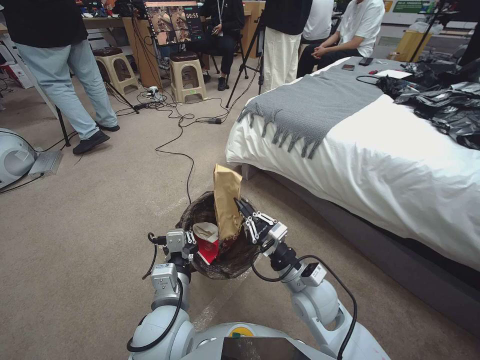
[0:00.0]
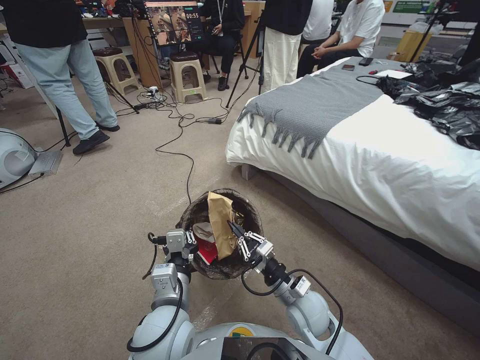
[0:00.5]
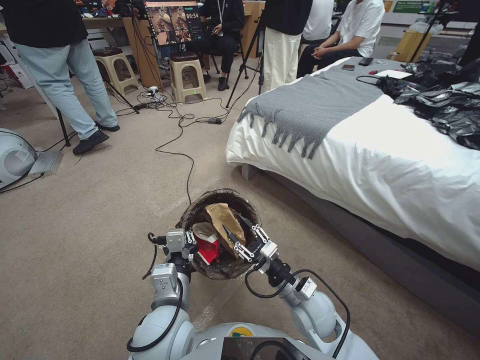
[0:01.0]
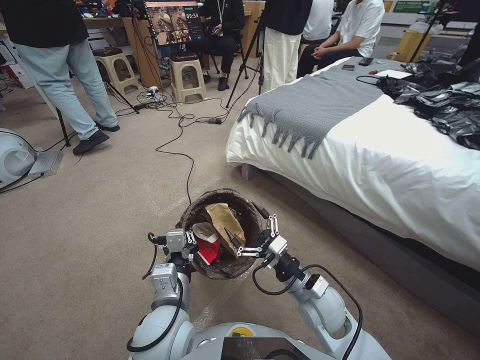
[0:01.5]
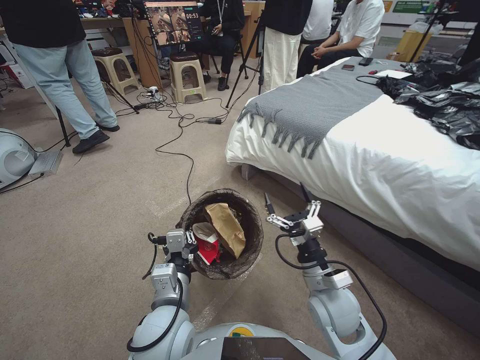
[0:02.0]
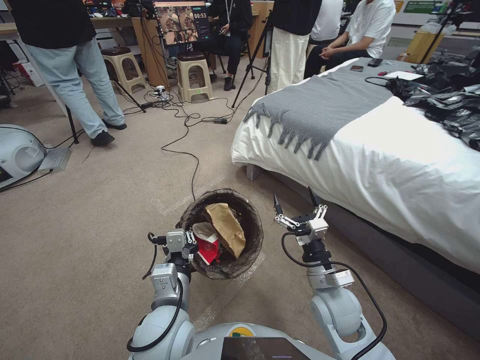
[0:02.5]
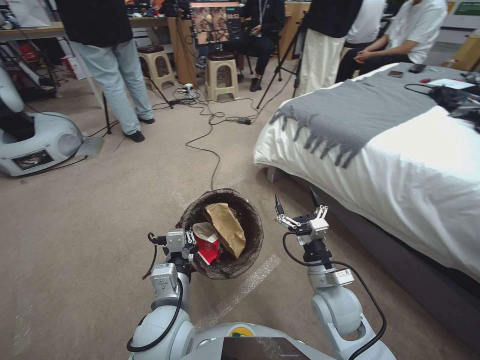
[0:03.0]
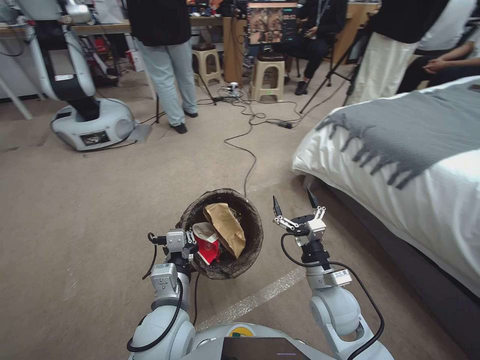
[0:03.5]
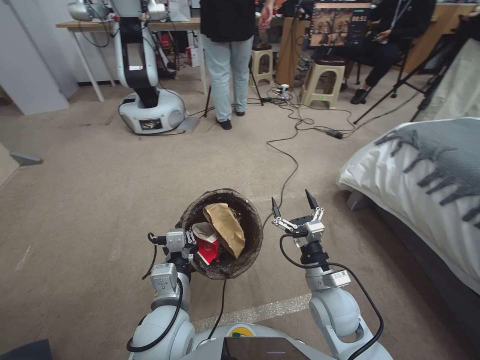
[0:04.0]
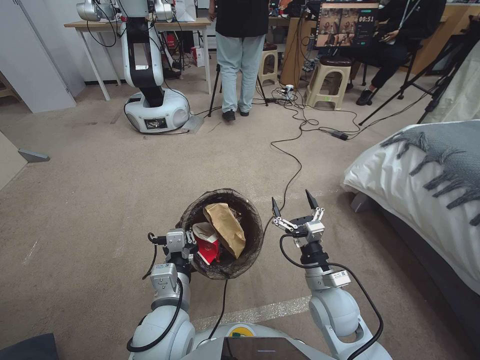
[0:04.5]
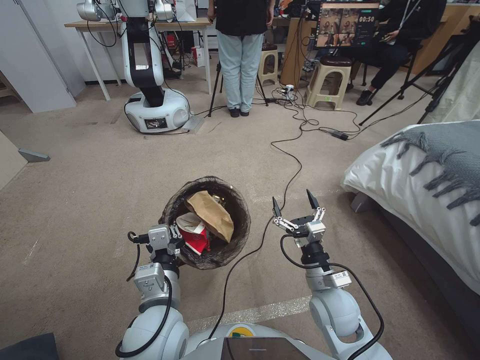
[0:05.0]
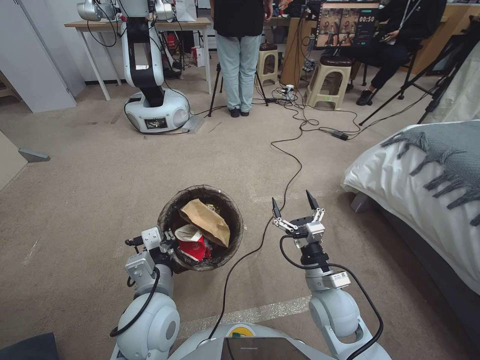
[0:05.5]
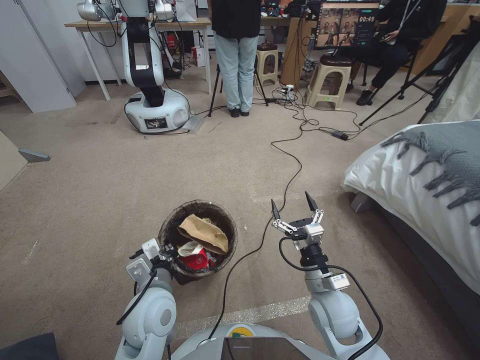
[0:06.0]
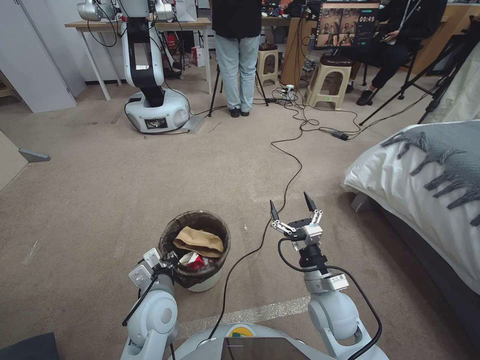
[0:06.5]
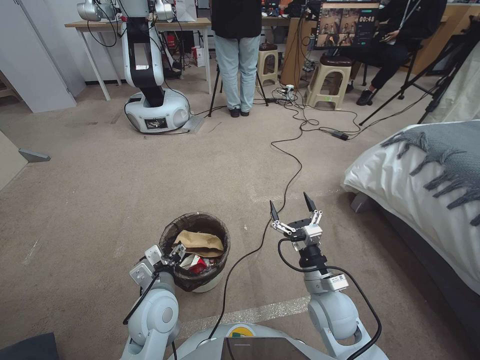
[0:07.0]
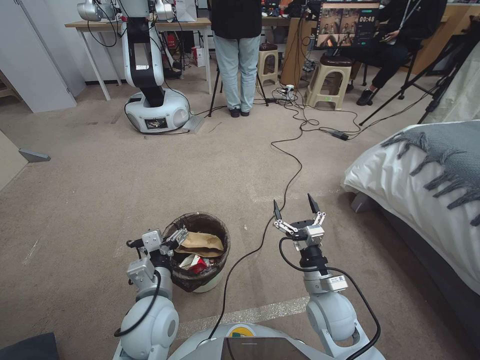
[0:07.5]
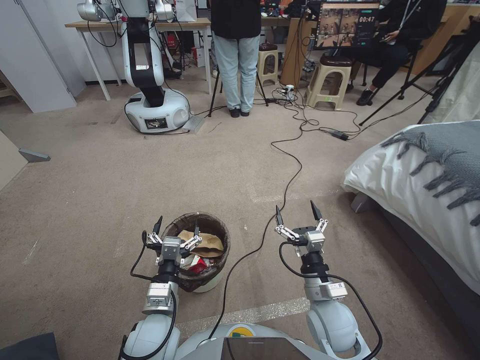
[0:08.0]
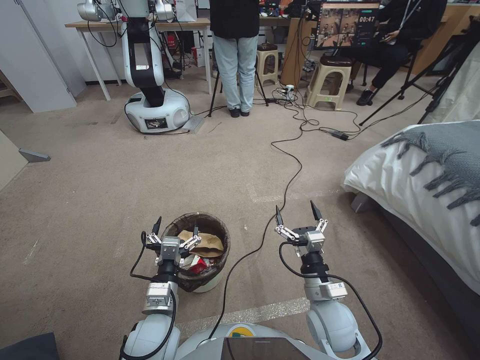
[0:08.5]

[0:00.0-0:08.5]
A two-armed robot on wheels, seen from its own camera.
Task of the whole recording: Pick up the trash bin, then pick up the garbage from the floor and place it into the trash bin.
0:00.0 to 0:02.0: The right gripper travels downward and back again, about 10 cm each way, and opens up.
0:04.0 to 0:06.5: The left gripper moves downward, approximately 5 cm.
0:06.5 to 0:08.5: The left gripper opens.

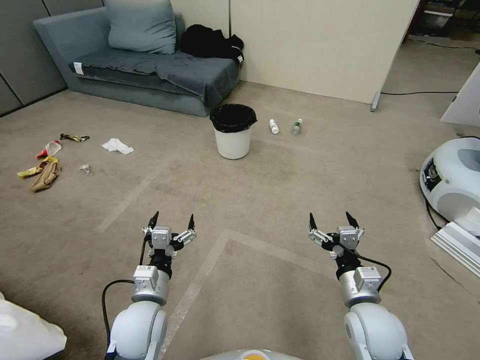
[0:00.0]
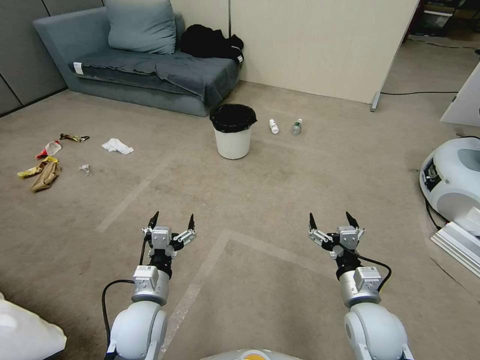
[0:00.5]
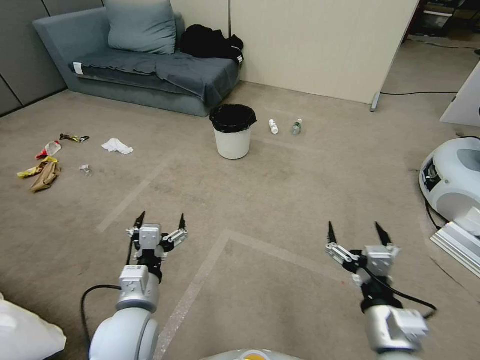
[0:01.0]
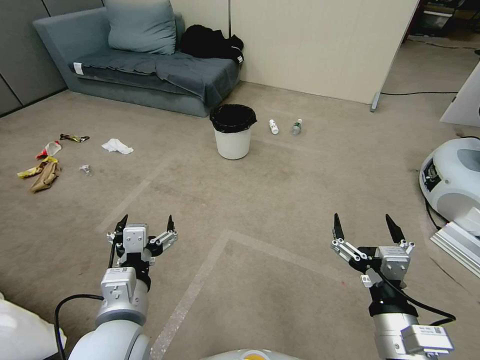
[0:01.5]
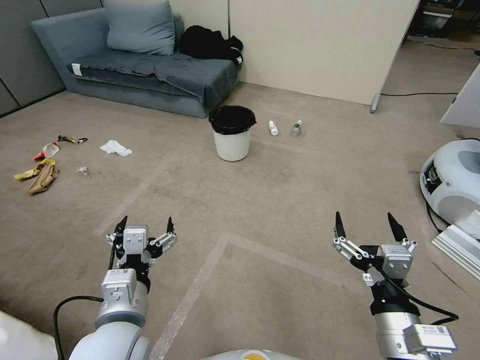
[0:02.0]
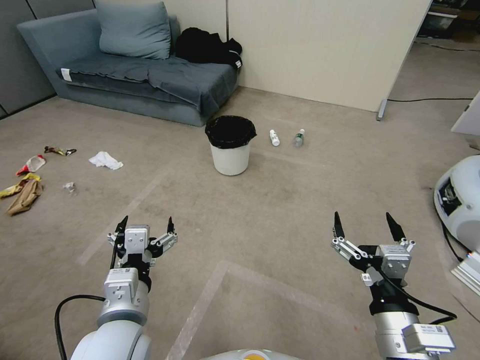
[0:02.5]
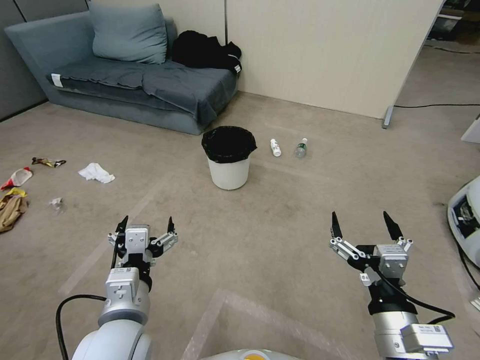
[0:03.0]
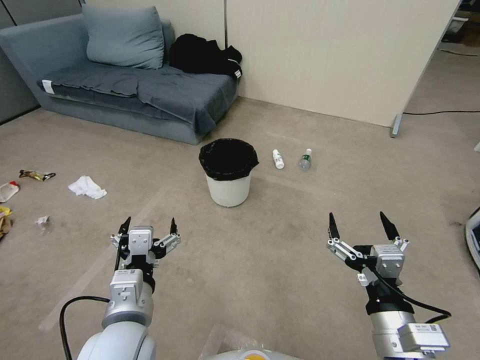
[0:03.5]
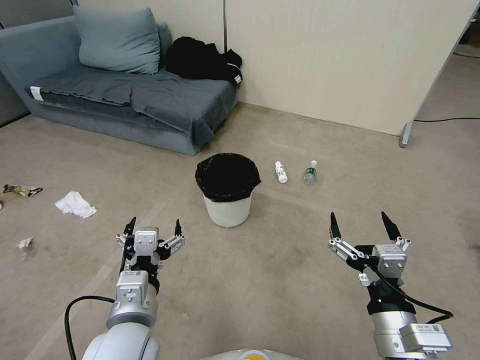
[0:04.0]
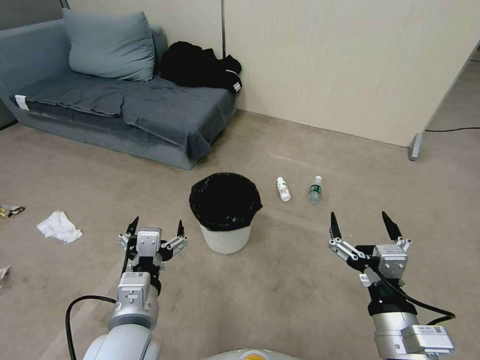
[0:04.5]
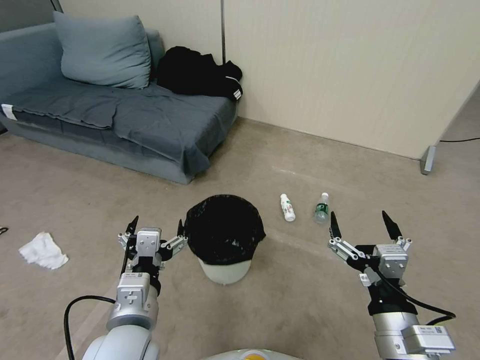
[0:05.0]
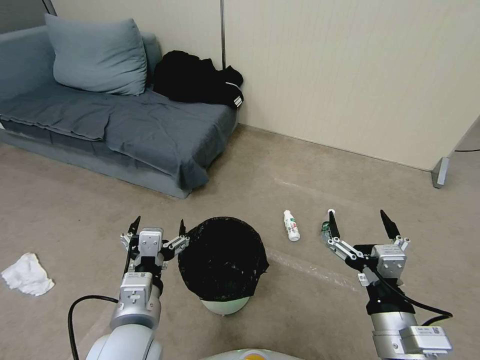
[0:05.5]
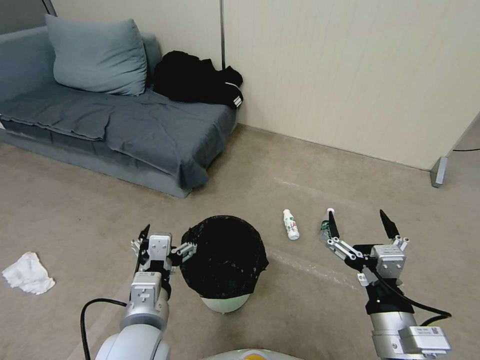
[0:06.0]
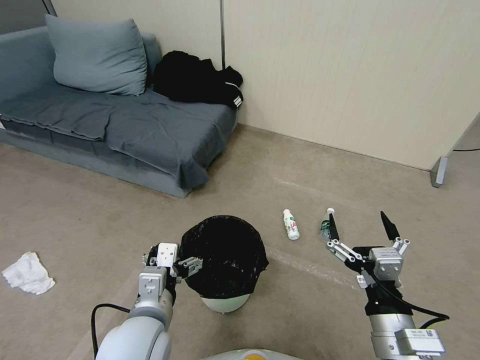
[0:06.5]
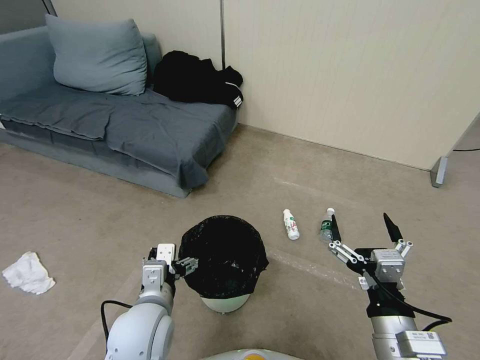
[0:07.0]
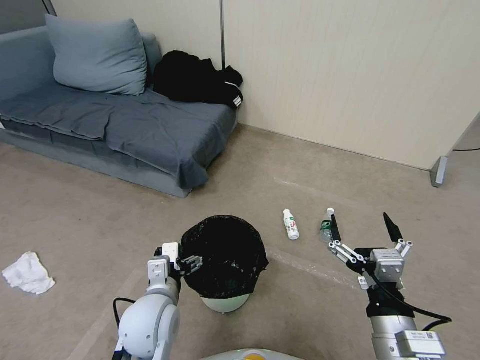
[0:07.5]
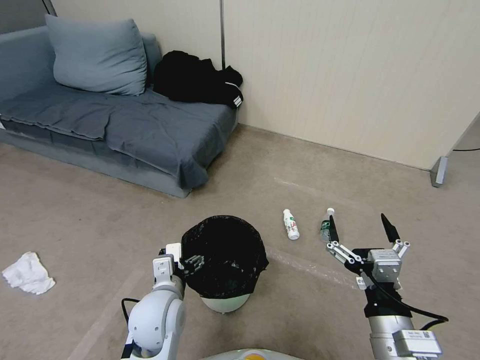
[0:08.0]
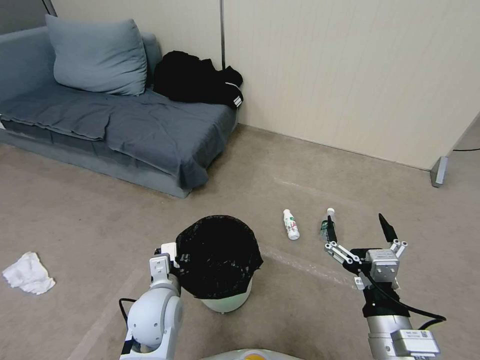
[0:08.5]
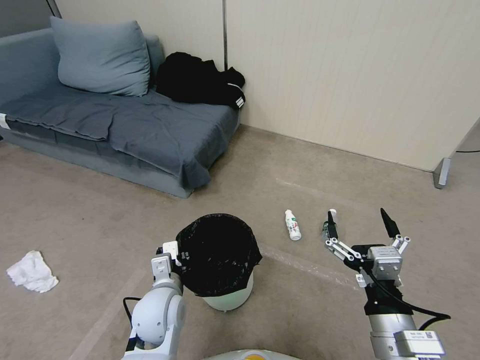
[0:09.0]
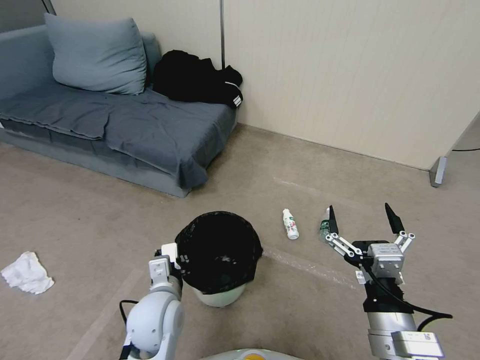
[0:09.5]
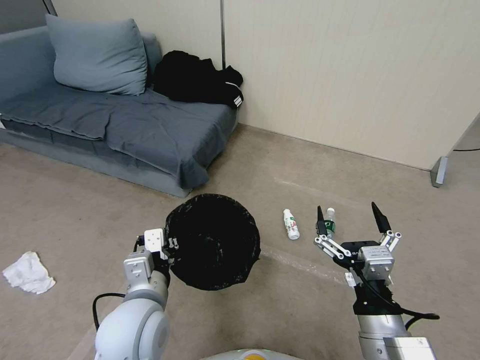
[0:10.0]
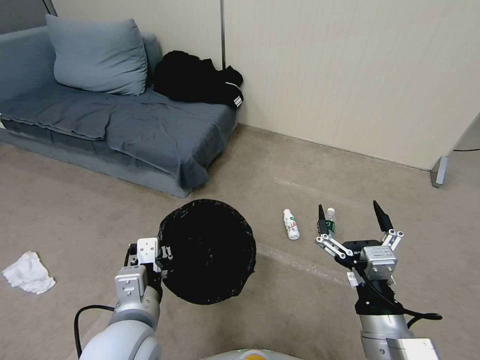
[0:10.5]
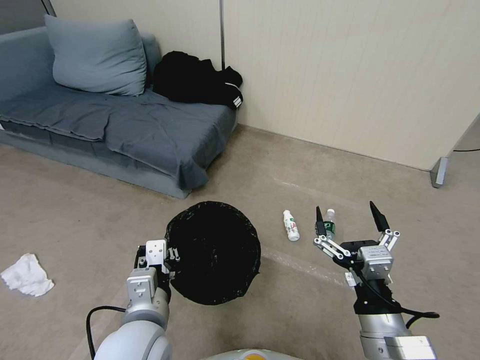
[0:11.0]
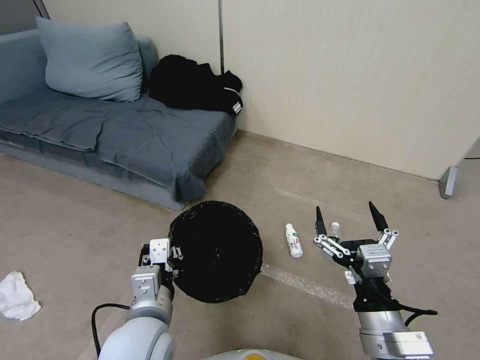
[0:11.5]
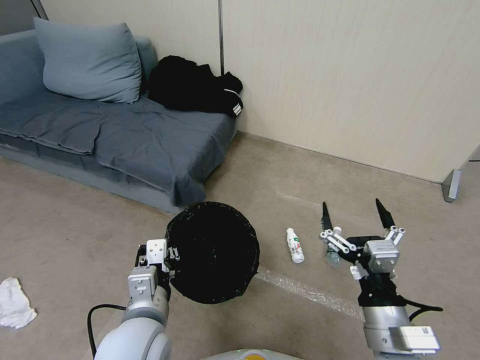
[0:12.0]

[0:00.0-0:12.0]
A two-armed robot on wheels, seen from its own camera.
Task of the whole recording: Pick up the trash bin, then pick up the garbage from the floor and place it into the trash bin.
0:06.0 to 0:08.0: The left gripper is displaced downward and forward by roughly 10 cm.
0:08.0 to 0:10.0: The left gripper is displaced upward by approximately 10 cm, and closes up.
0:10.0 to 0:12.0: There are only small adjustments of the grippers.

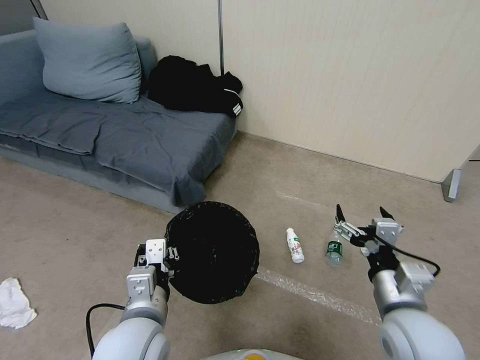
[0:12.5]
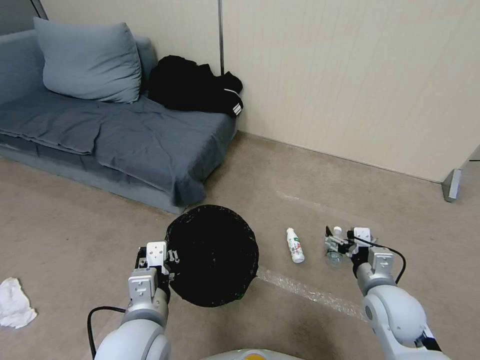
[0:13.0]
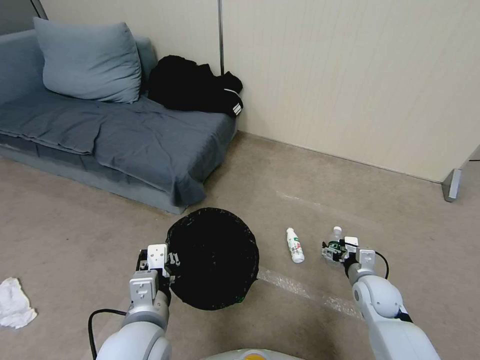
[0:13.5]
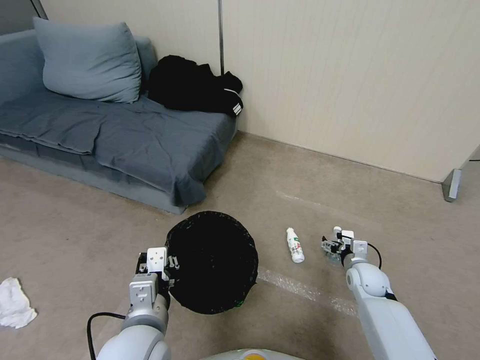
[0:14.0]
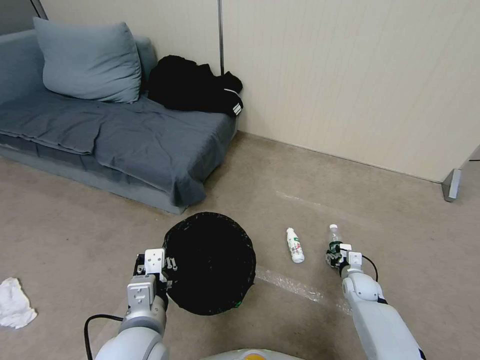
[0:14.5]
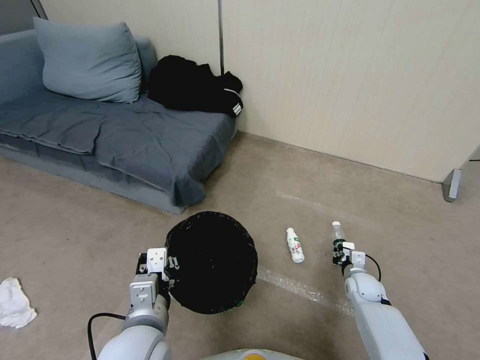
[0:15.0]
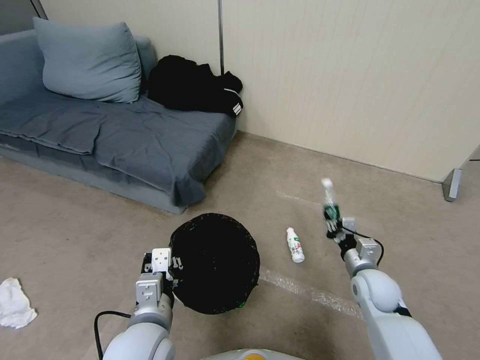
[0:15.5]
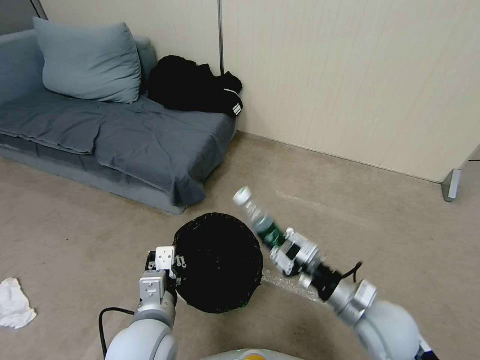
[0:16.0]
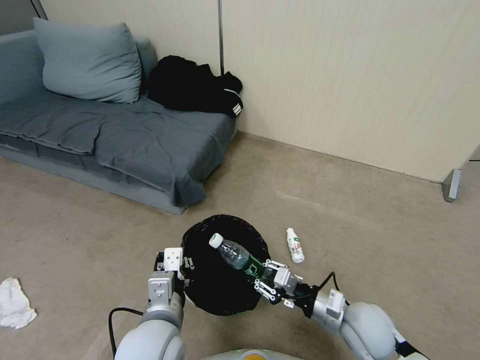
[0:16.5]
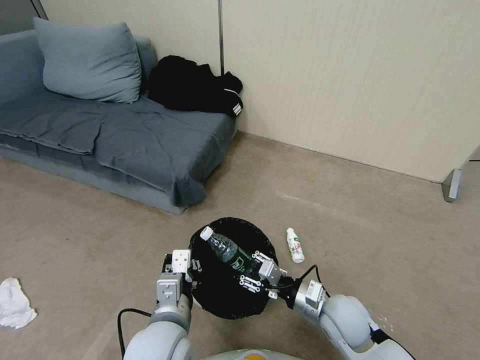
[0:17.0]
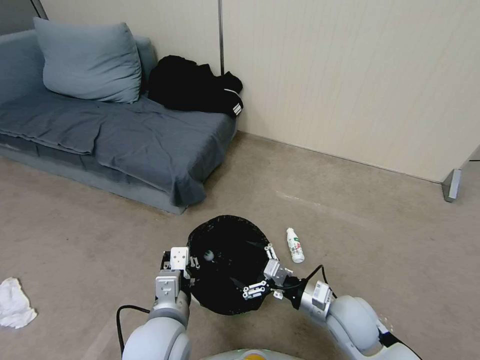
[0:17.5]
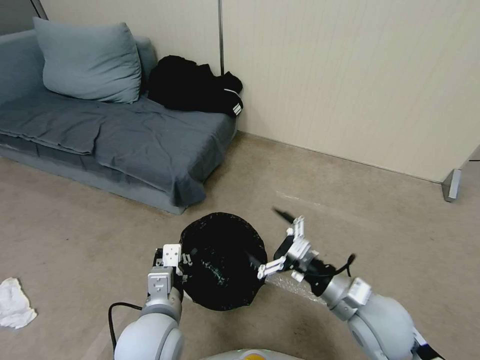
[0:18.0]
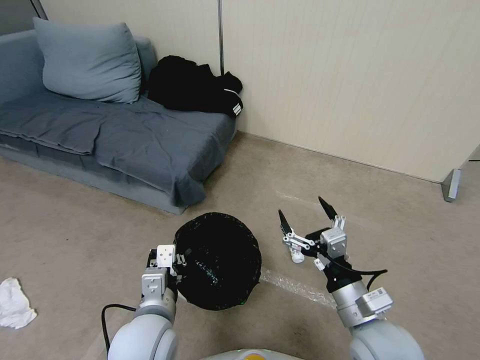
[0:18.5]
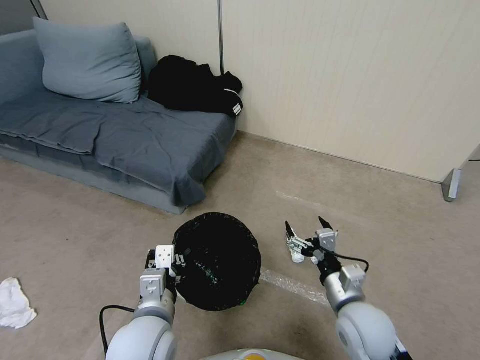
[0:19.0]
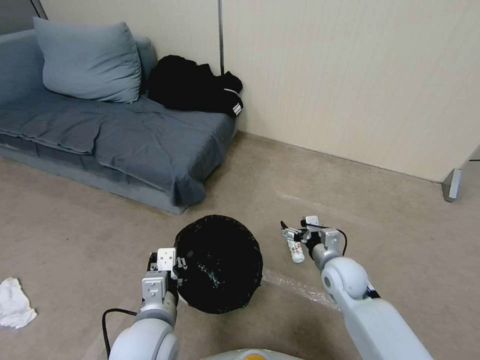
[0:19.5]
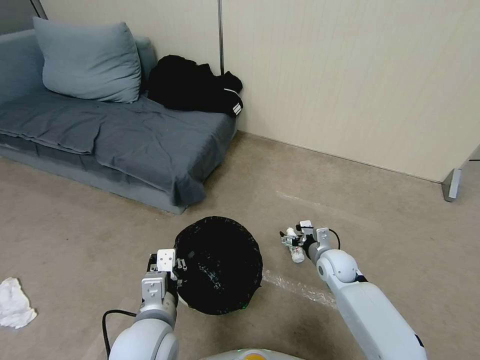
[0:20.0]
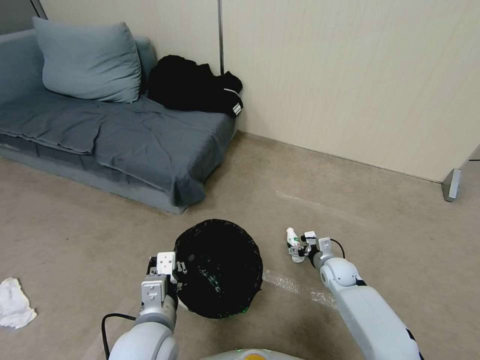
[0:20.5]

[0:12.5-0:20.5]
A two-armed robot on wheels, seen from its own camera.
Task of the whole recording: Pick up the trash bin, then pick up the garbage from the floor and place it into the trash bin.
0:12.5 to 0:14.5: The right gripper heads downward and forward, covering some 35 cm, and closes its fingers.
0:14.5 to 0:16.5: The right gripper heads upward, backward and to the left, covering approximately 25 cm, and closes up.
0:16.5 to 0:18.5: The right gripper travels upward and backward by approximately 10 cm, and opens.
0:18.5 to 0:20.5: The right gripper moves downward and forward, approximately 30 cm.
